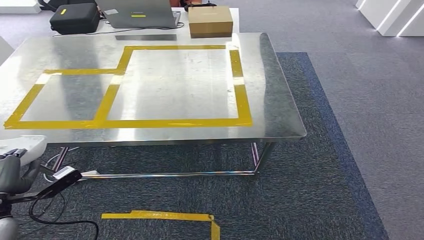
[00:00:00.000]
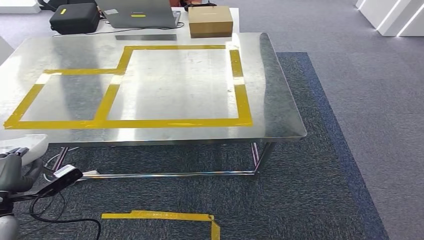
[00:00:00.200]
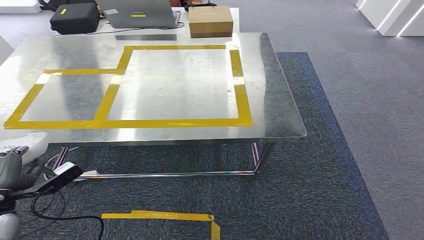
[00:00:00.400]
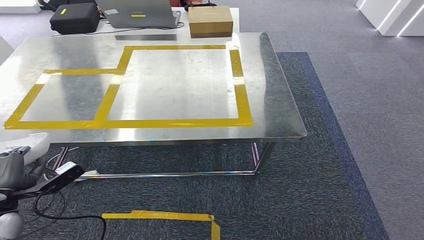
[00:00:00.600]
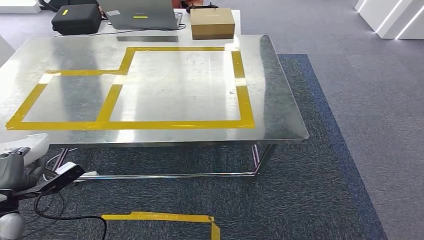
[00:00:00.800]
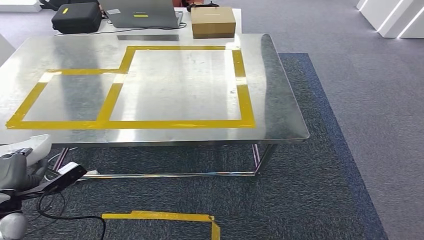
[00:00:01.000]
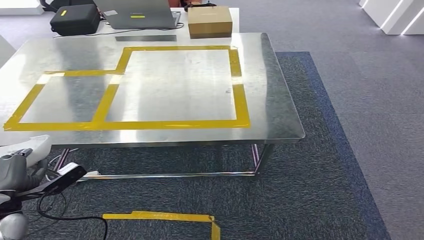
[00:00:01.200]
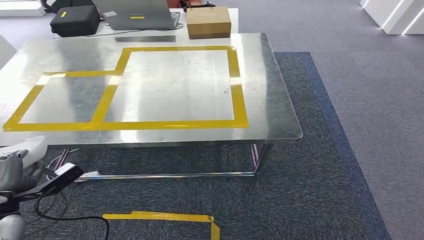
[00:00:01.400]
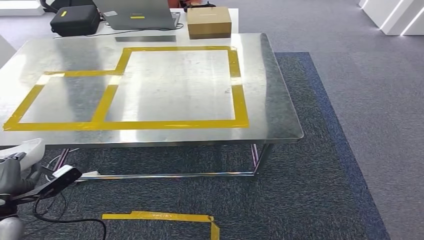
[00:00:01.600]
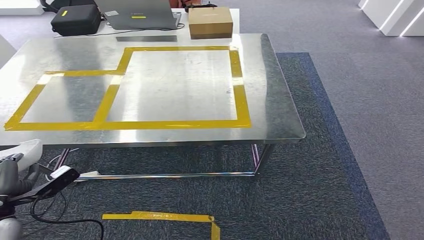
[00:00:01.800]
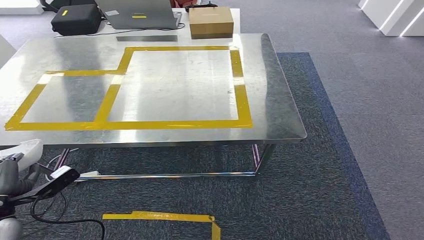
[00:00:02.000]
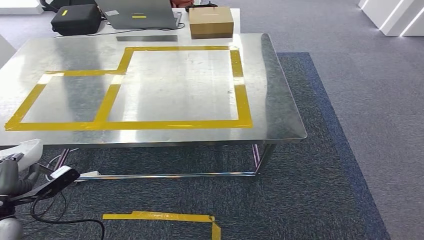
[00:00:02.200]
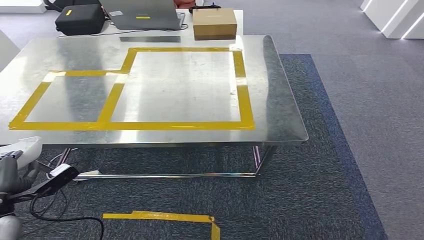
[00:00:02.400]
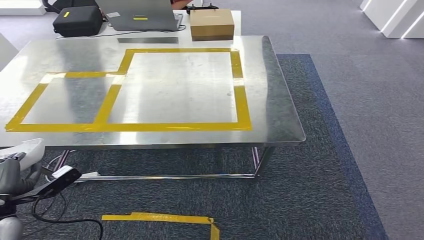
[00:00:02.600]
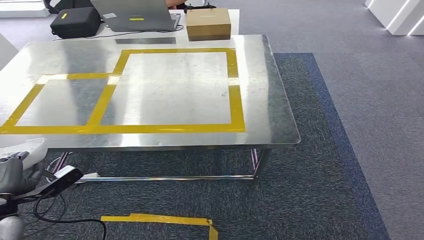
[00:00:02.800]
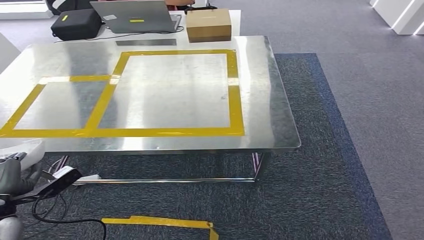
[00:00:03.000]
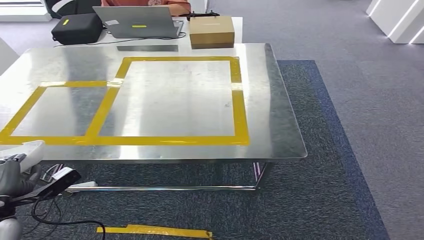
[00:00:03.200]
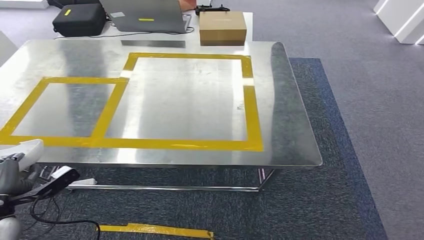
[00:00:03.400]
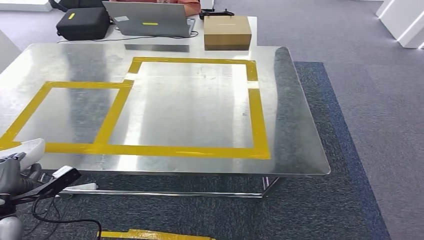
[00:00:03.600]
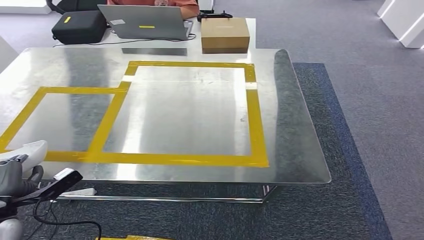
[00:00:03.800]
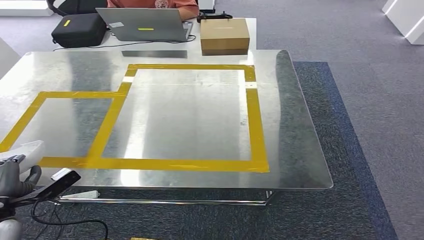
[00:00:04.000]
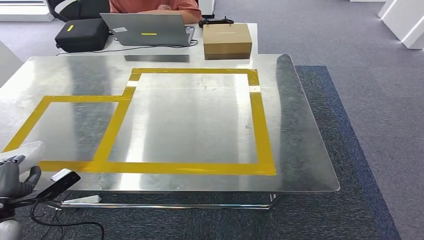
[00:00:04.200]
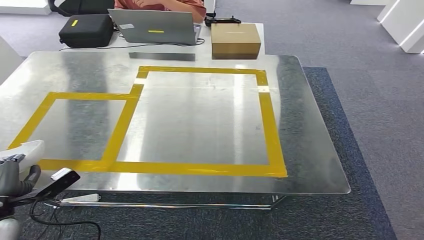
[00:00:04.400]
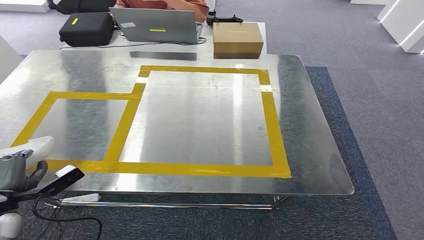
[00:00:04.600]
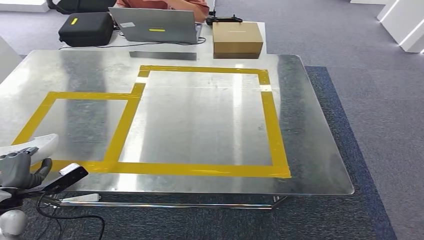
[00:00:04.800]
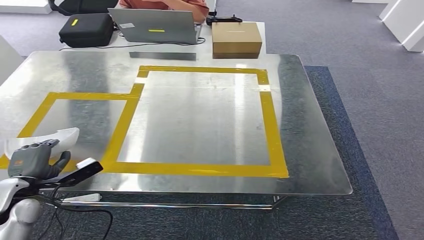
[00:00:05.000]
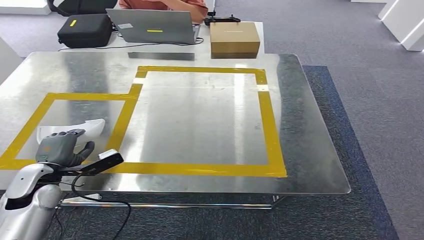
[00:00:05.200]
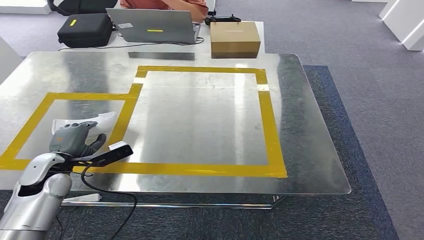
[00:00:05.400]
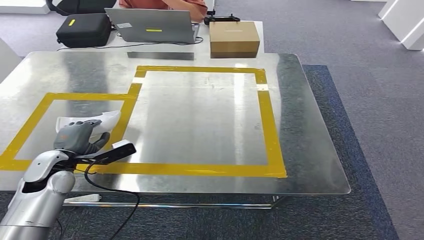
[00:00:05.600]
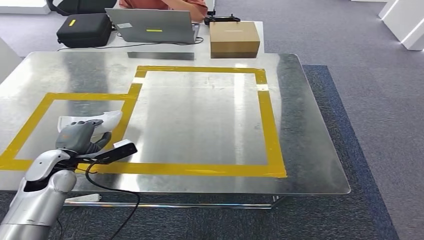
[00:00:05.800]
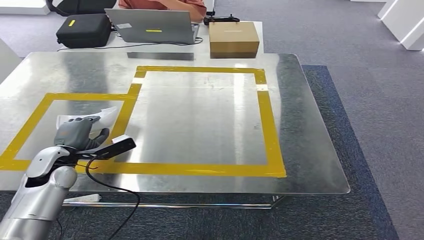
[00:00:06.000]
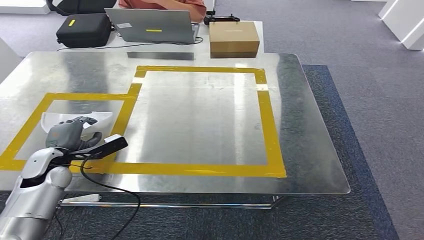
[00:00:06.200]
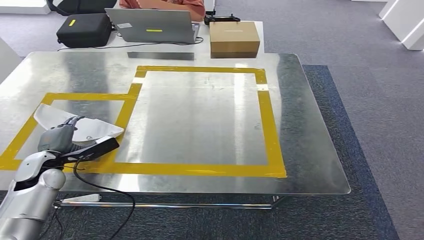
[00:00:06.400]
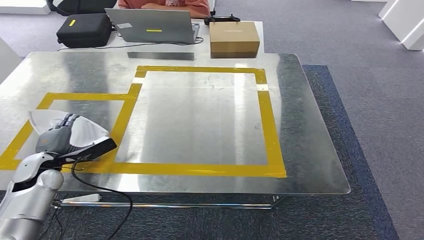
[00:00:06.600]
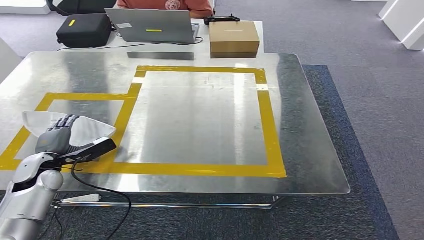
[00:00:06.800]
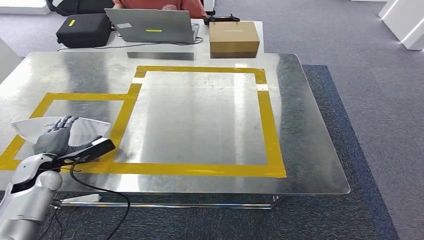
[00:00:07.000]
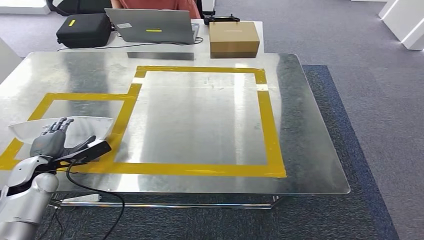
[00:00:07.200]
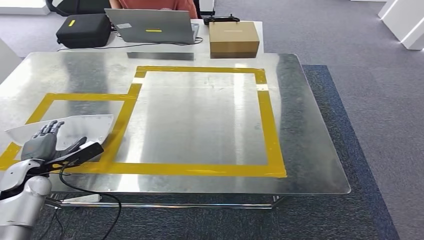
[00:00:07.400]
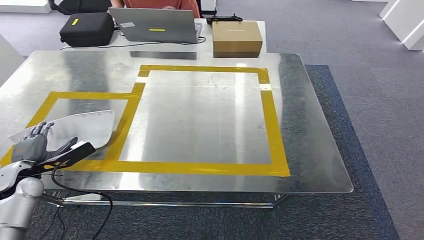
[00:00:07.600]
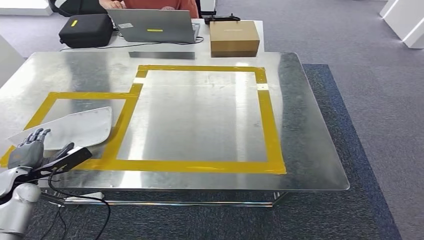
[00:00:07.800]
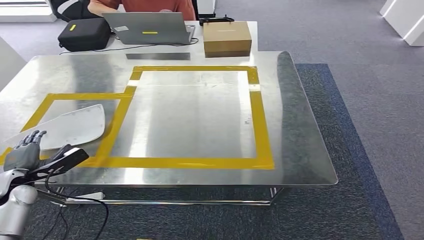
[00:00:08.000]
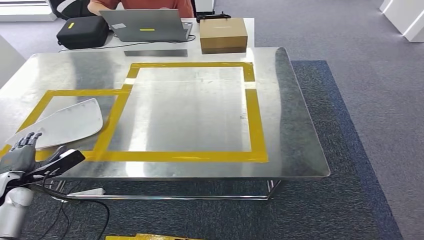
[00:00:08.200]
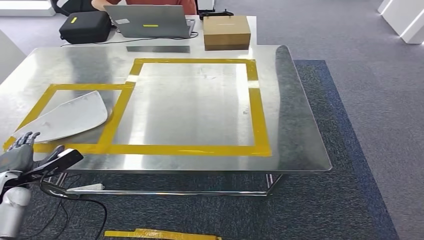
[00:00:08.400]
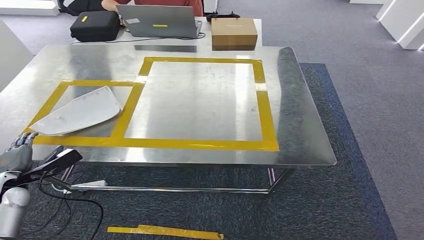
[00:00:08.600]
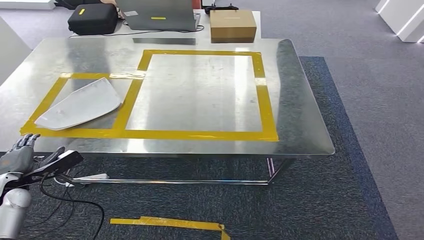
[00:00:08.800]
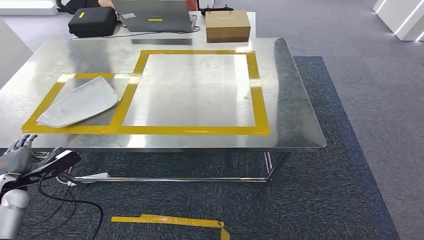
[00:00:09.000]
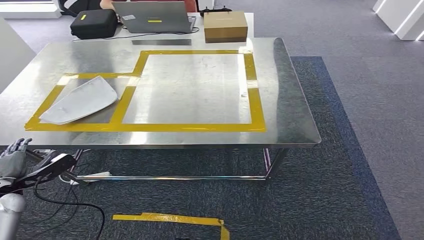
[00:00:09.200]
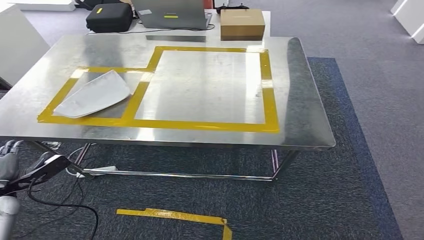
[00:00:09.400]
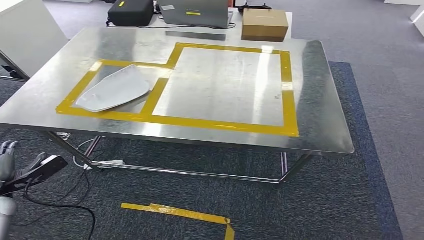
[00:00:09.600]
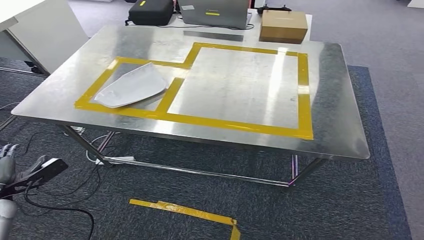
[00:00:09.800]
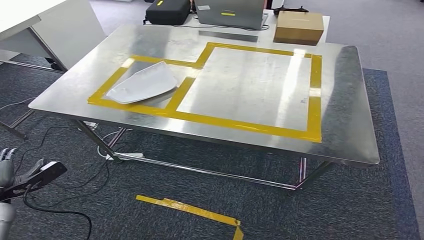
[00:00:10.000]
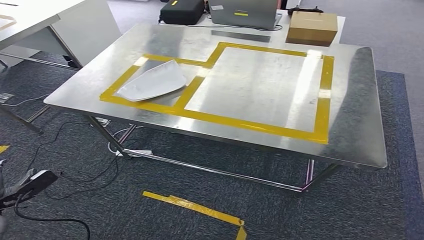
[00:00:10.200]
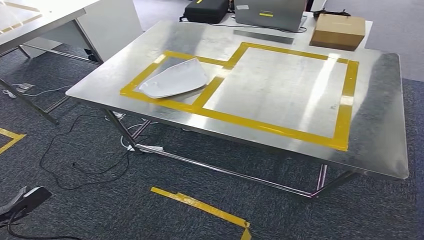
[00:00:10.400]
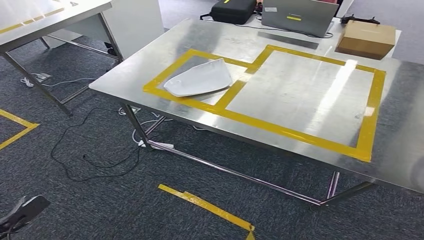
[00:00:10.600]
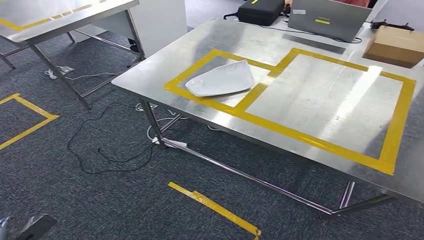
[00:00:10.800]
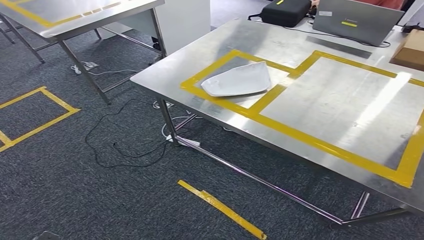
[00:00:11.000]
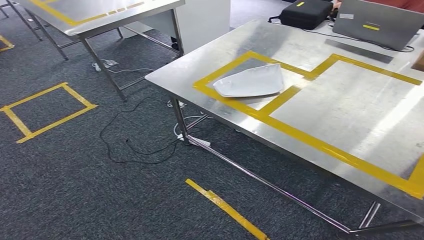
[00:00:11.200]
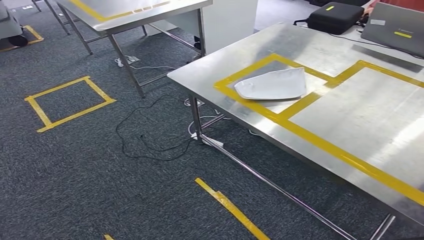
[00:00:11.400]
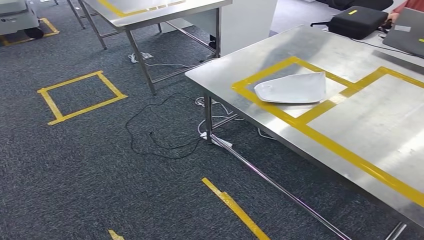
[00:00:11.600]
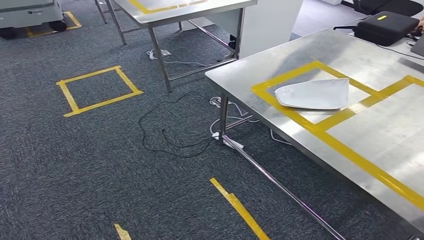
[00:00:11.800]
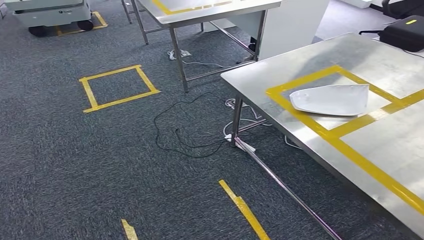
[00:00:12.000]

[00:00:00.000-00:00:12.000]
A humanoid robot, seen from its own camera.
Step, 00:00:00.000 to 00:00:08.400: Insert the small parts into the corresponding slots on the workbench.
00:00:00.000 to 00:00:01.600: The hands move only a little.
00:00:01.600 to 00:00:03.000: Neither hand changes place.
00:00:04.400 to 00:00:06.000: The left hand heads forward and to the right, covering some 15 cm.
00:00:06.000 to 00:00:07.600: The left hand heads to the left, covering approximately 10 cm.

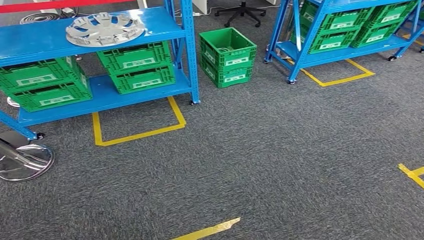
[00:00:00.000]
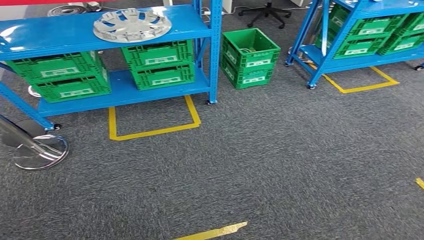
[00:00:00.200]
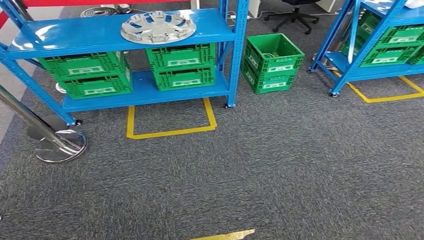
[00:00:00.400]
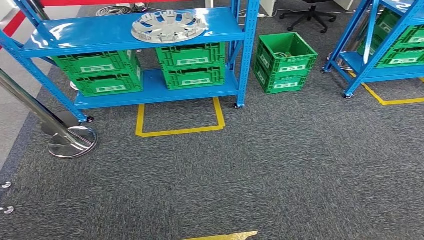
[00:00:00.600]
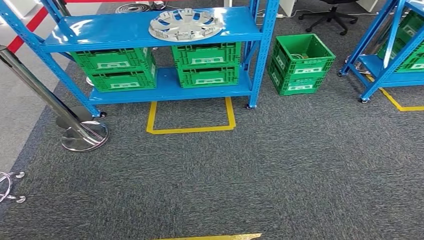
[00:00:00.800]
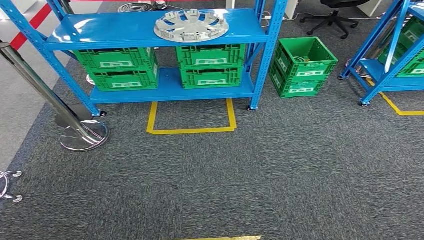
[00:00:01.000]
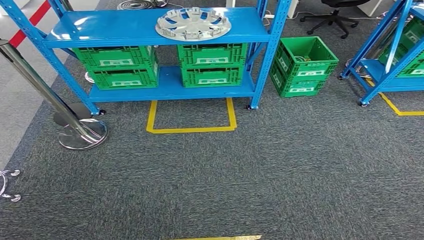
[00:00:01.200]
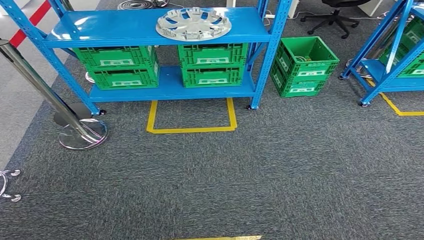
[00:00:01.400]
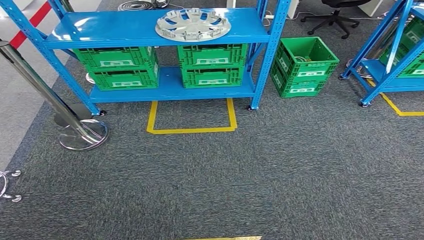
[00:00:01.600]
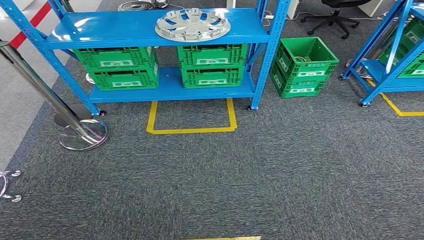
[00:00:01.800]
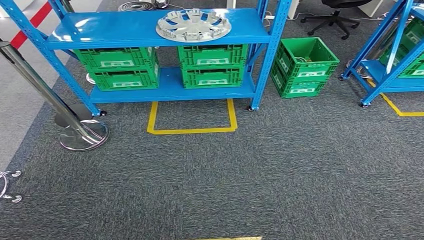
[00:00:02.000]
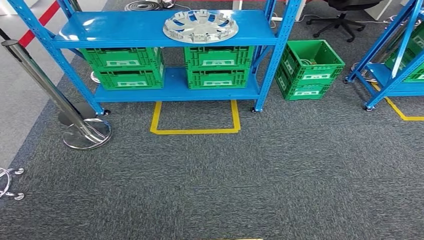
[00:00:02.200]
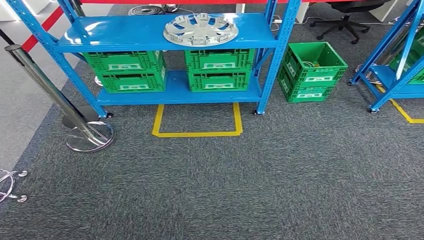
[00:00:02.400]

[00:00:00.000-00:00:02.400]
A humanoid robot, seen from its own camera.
Step, 00:00:00.000 to 00:00:02.400: Return to the initial position at the workbench.
